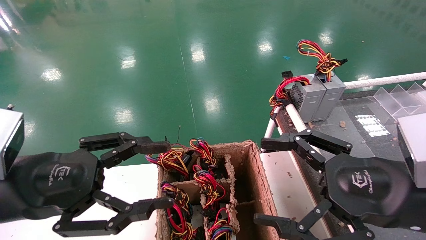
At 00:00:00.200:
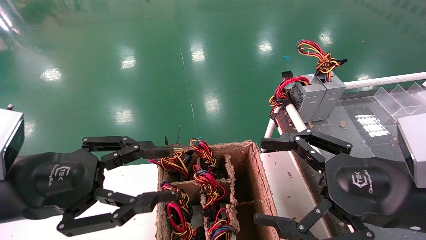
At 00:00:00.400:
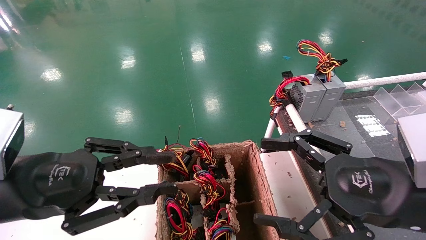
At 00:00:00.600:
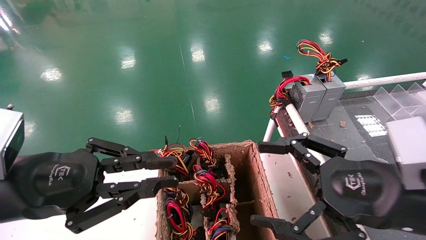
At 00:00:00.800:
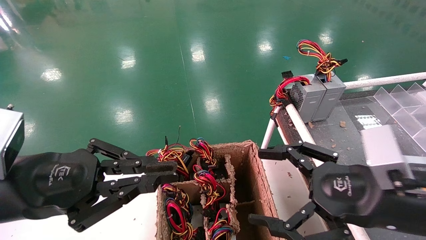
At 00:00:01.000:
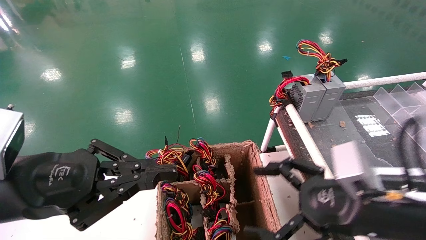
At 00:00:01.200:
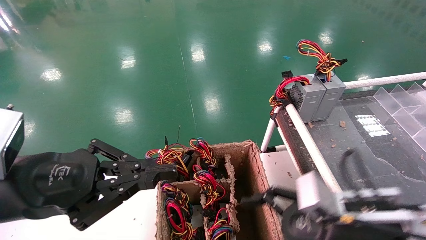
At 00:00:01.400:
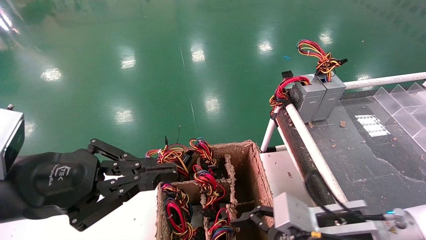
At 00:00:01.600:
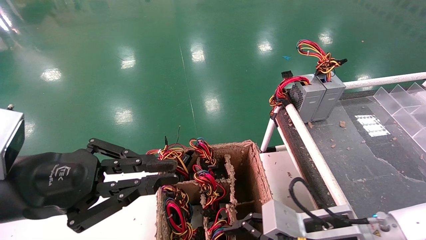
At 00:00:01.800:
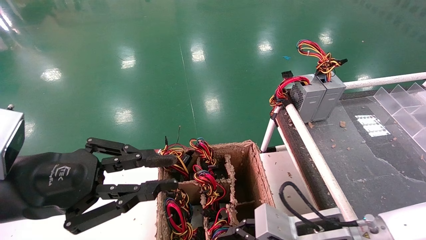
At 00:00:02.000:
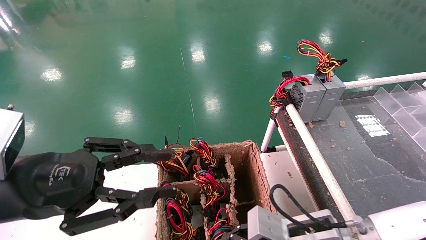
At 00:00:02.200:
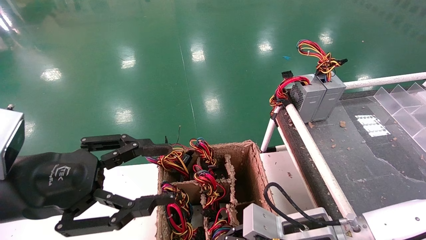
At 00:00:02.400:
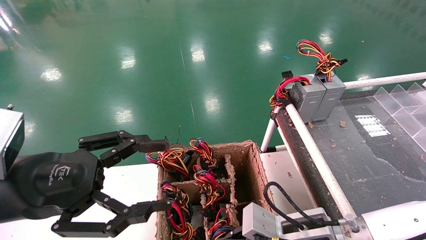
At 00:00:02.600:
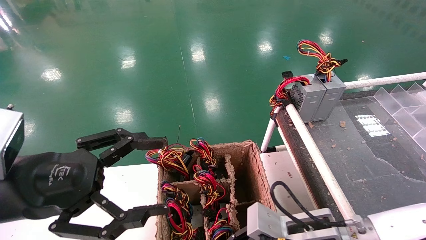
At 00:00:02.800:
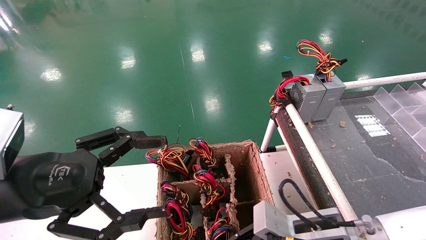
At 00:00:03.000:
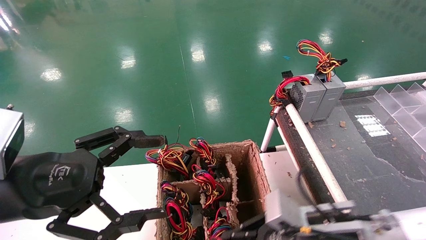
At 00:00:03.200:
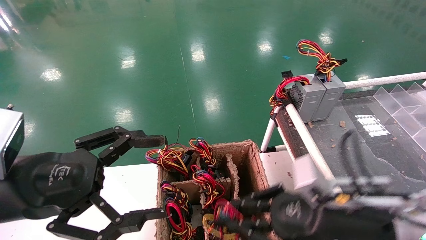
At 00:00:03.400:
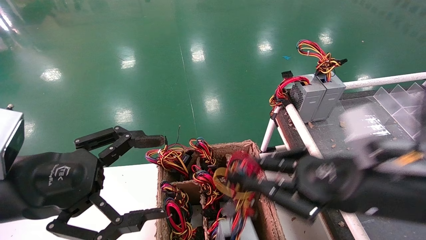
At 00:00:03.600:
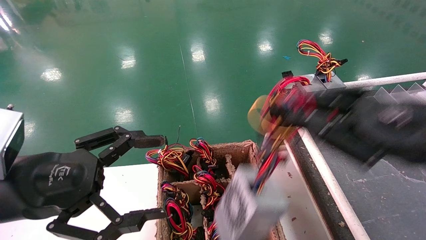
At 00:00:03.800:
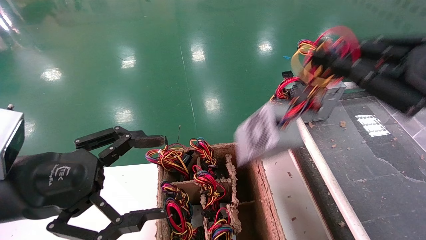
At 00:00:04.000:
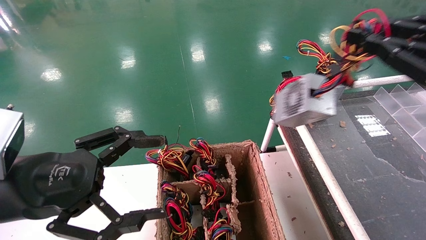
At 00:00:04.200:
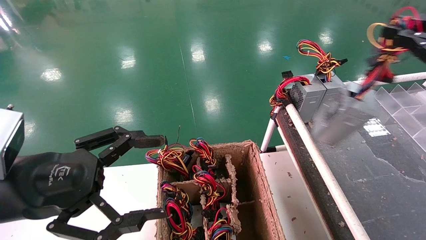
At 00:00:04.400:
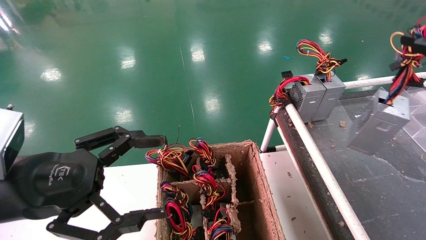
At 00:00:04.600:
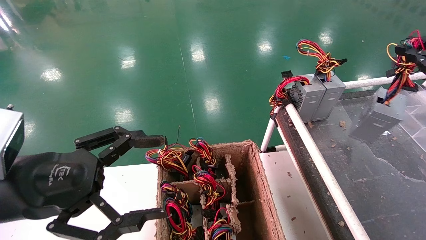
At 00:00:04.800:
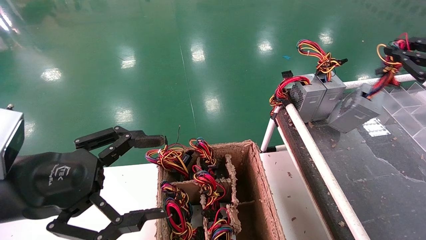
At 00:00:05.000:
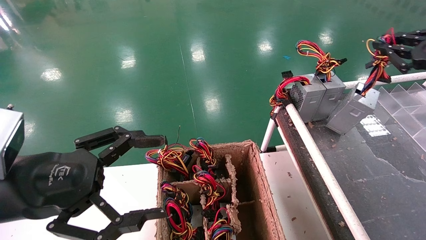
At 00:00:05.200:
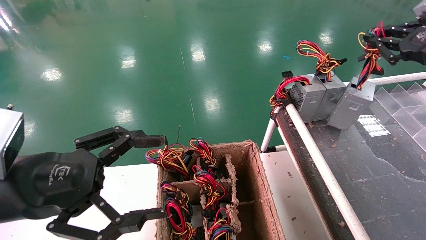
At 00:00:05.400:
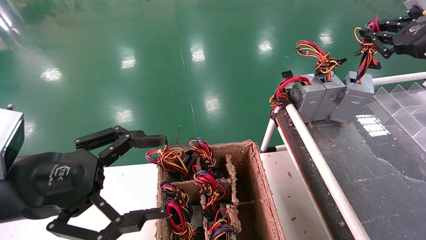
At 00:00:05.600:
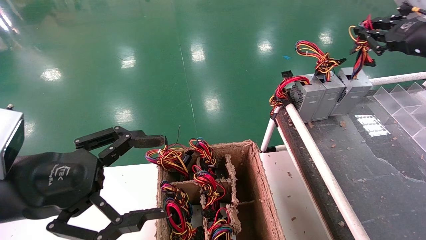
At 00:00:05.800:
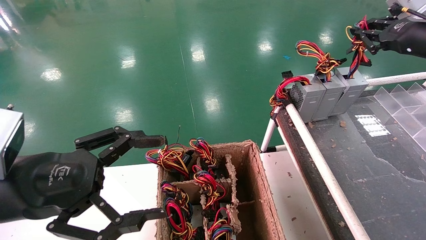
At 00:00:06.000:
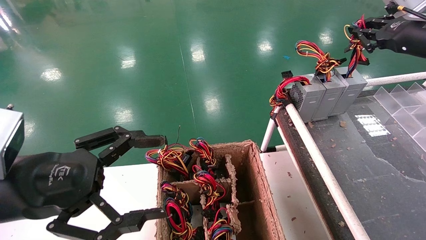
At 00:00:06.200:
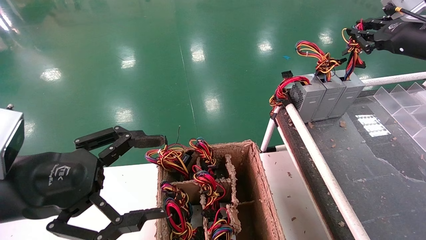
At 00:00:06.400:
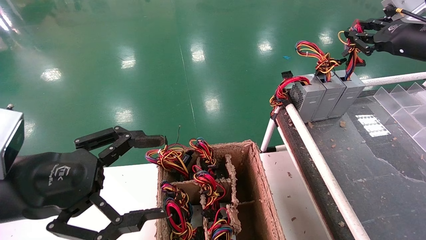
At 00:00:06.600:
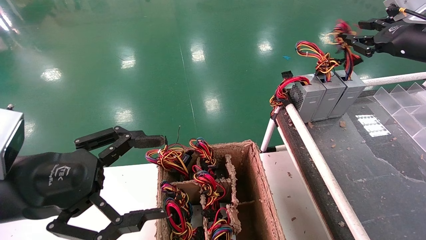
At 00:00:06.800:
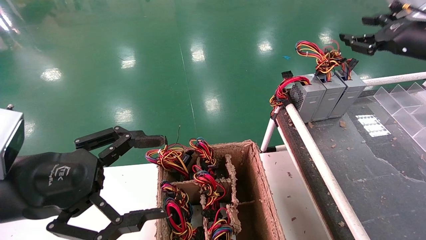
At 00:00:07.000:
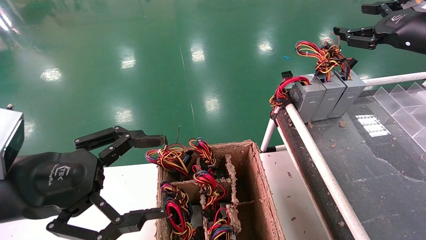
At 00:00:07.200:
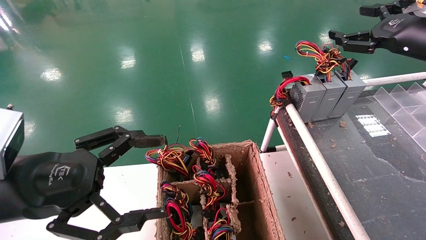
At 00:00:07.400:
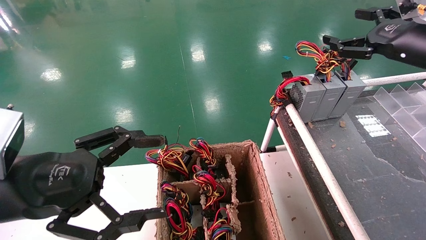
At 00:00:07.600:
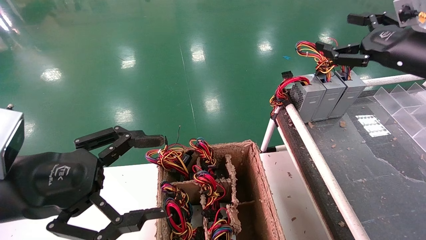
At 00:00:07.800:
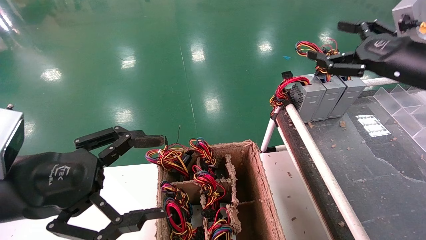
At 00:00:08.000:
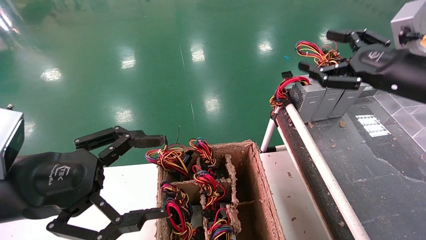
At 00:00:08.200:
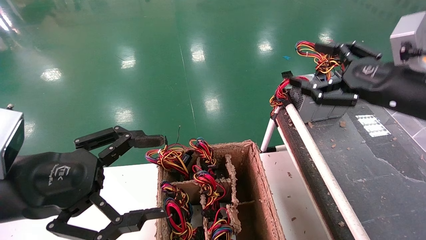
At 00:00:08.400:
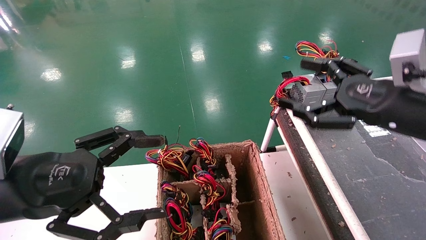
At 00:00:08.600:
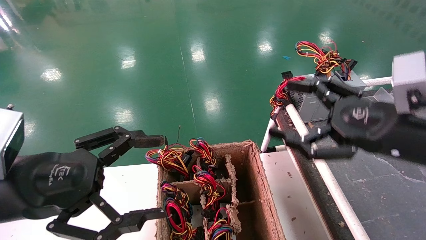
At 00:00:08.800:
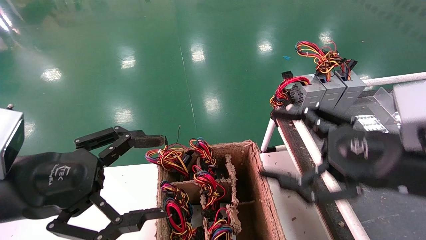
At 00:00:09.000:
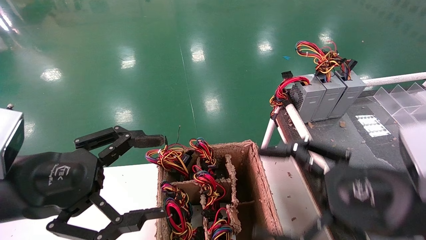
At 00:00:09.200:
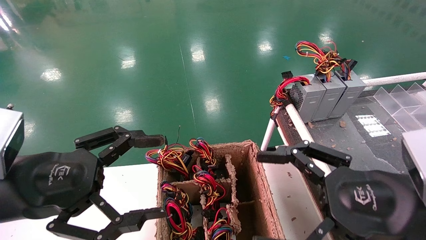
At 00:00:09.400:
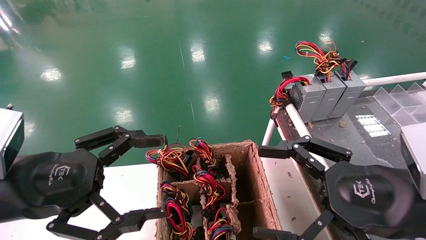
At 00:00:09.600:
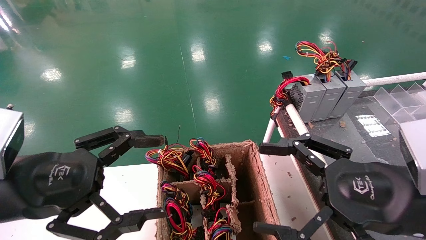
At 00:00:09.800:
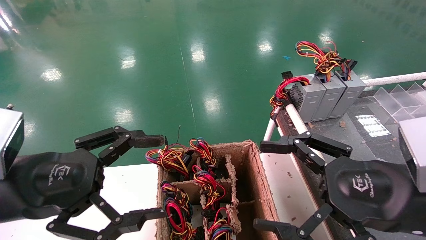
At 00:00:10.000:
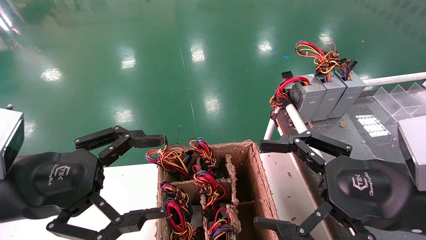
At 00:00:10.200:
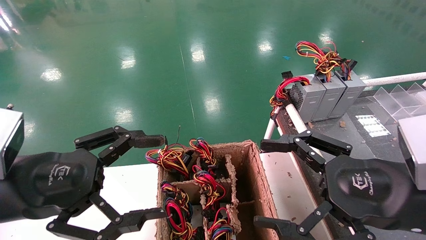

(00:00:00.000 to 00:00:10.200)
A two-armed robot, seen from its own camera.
Step, 00:00:01.000 - 00:00:02.800: Grab and lift the power supply from the large box.
Step, 00:00:03.000 - 00:00:06.800: Place the power supply on the operating table.
00:00:00.000 - 00:00:01.400: The right gripper travels downward and to the left by some 10 cm. The left gripper closes up.
00:00:01.400 - 00:00:03.000: The right gripper closes; the left gripper opens up.
00:00:03.000 - 00:00:04.400: The right gripper is displaced to the right and upward by some 30 cm.
00:00:04.400 - 00:00:05.800: The right gripper goes approximately 15 cm forward.
00:00:05.800 - 00:00:07.200: The right gripper opens up.
00:00:07.200 - 00:00:08.800: The right gripper travels backward, downward and to the left by about 25 cm.
00:00:08.800 - 00:00:10.200: The grippers make only small movements.
